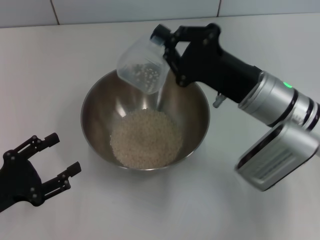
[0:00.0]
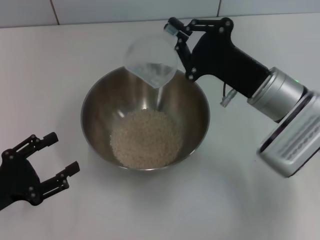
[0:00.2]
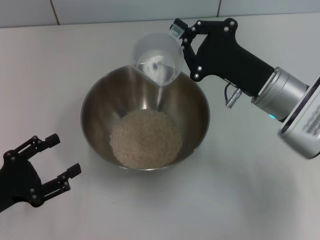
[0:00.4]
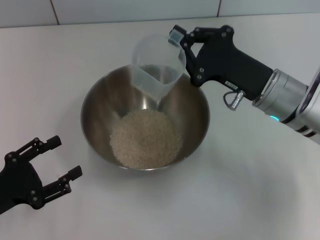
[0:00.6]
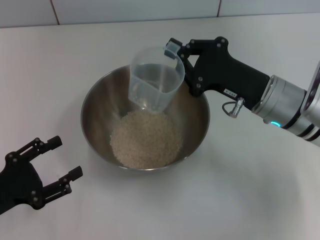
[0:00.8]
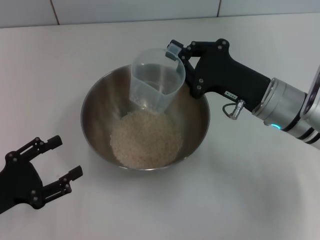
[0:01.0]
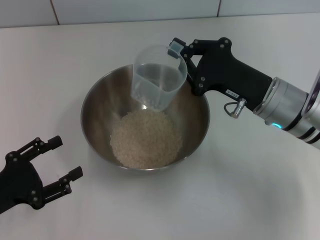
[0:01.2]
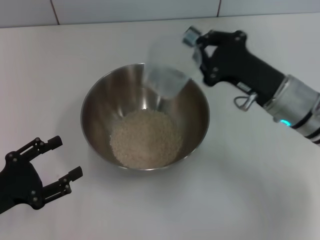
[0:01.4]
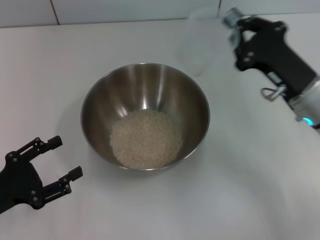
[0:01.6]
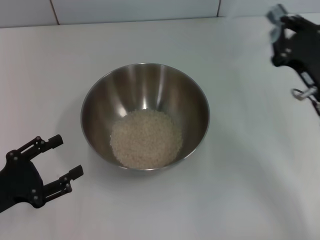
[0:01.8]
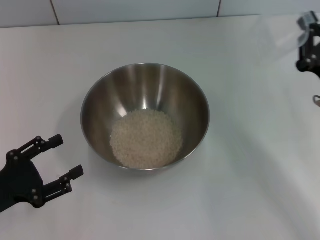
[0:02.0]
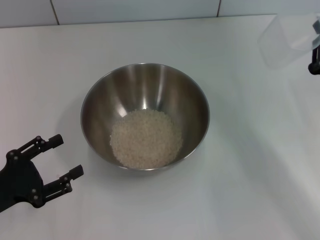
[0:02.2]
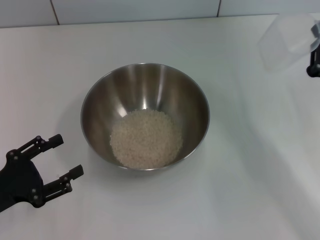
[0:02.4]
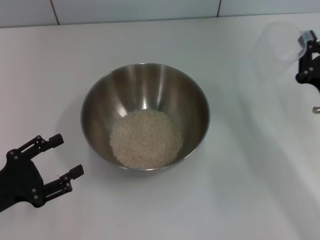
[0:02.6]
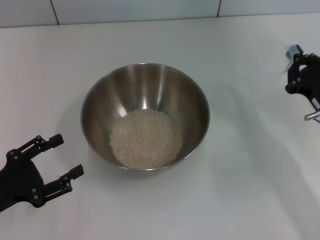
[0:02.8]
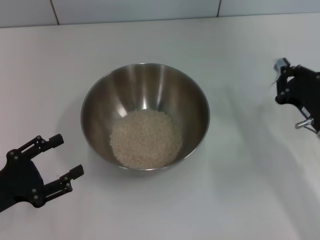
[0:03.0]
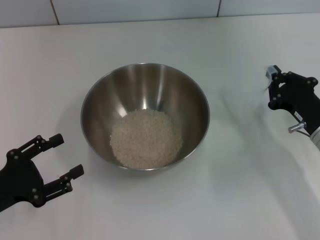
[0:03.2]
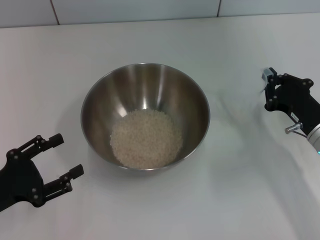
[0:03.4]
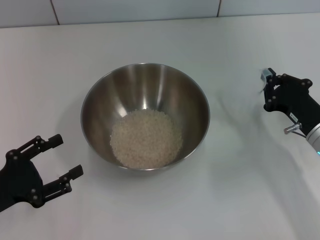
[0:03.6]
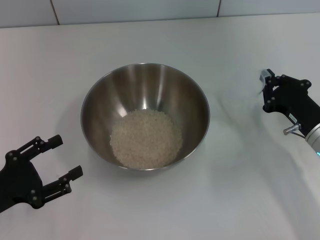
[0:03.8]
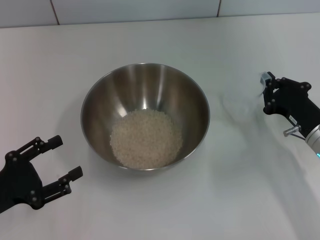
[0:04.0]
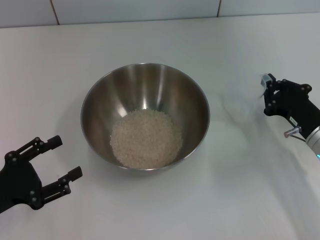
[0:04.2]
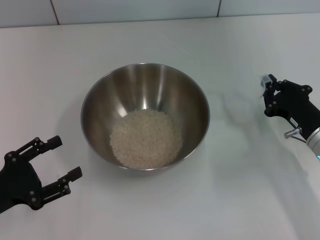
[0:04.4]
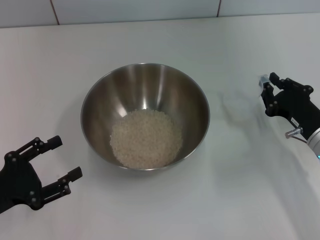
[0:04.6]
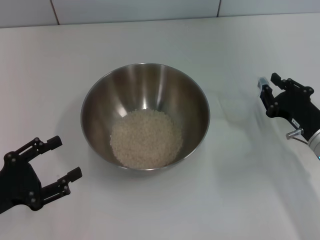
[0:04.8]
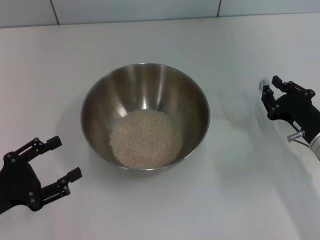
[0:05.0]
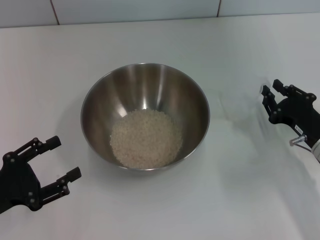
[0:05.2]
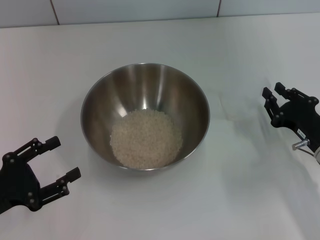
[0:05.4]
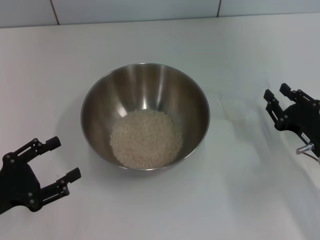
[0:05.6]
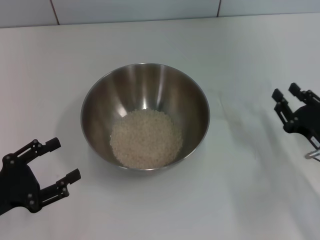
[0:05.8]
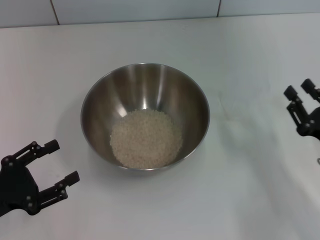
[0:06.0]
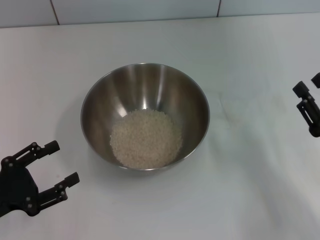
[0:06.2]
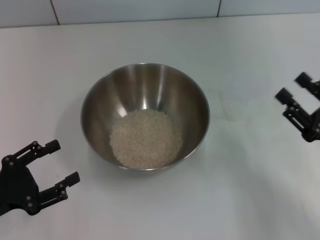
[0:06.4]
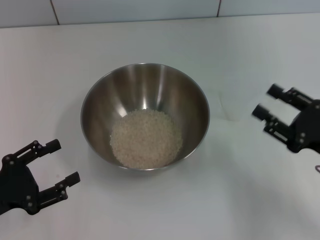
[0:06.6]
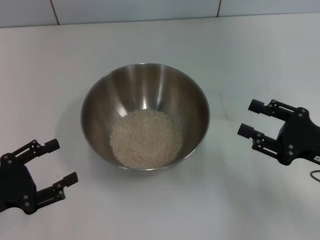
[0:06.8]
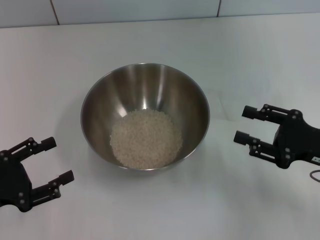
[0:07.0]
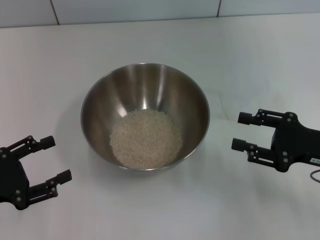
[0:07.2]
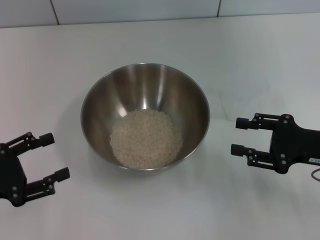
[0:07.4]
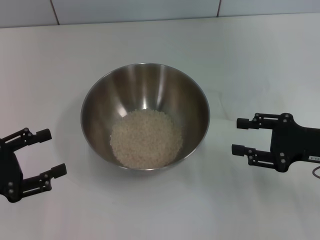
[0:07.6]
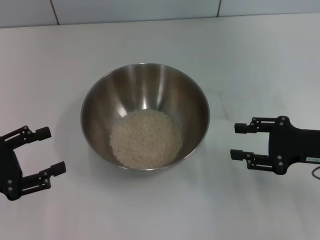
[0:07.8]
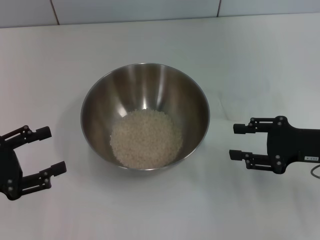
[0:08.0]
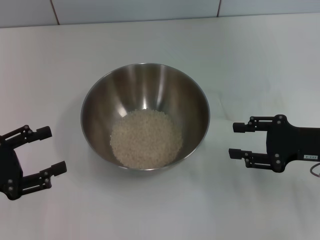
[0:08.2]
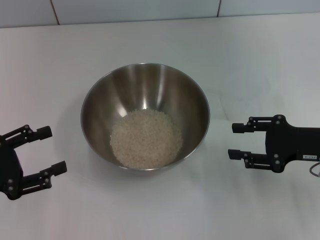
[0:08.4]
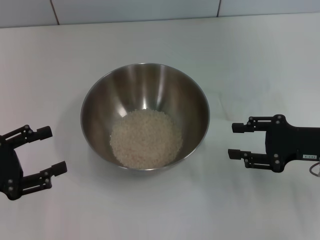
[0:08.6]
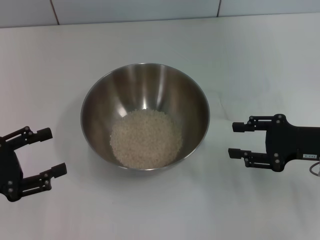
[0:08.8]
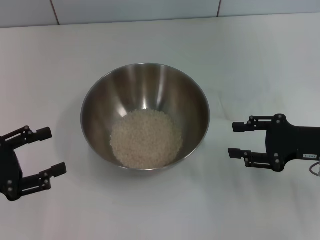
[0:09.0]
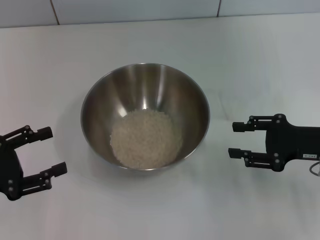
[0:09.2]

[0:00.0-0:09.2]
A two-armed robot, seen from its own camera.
Task of the whole recording: Place the bowl in the middle of the table with one hand and pour the rice from the grain cup into it with the other hand.
Step, 0:00.0 to 0:02.0: Pour the rice from the cup into the bowl with the right gripper.
Step, 0:02.2 to 0:05.6: Place the cup on the table with the right gripper.
0:00.0 to 0:01.6: The right gripper moves to the right, about 5 cm.
0:01.6 to 0:03.0: The right gripper goes roughly 10 cm downward and to the right.
0:03.0 to 0:04.6: The grippers stay close to where they were, moving slightly.
0:04.6 to 0:06.2: The right gripper goes about 10 cm backward, and opens up.
0:06.2 to 0:07.6: The right gripper goes roughly 5 cm forward.
0:07.6 to 0:09.2: The grippers move only a little.
